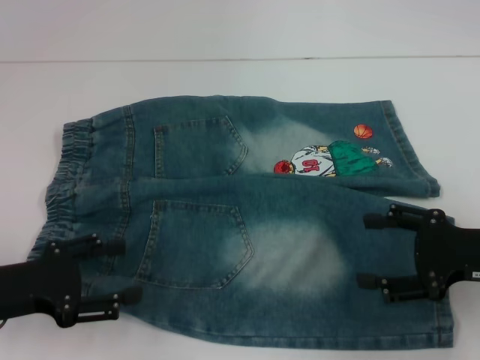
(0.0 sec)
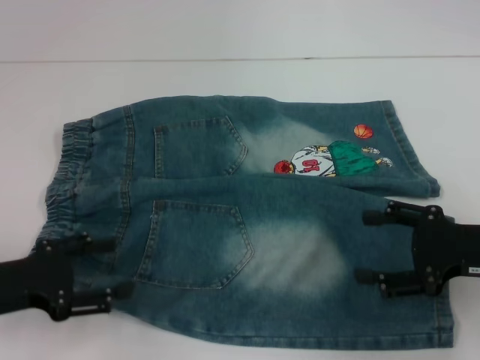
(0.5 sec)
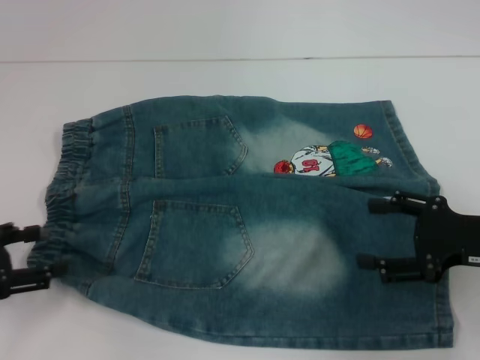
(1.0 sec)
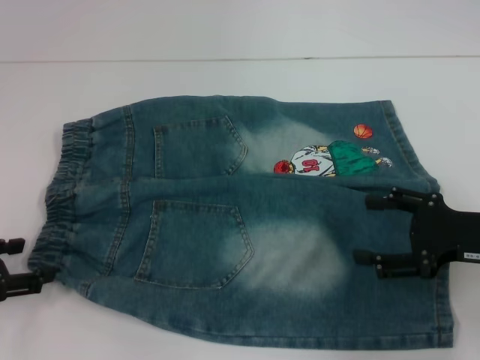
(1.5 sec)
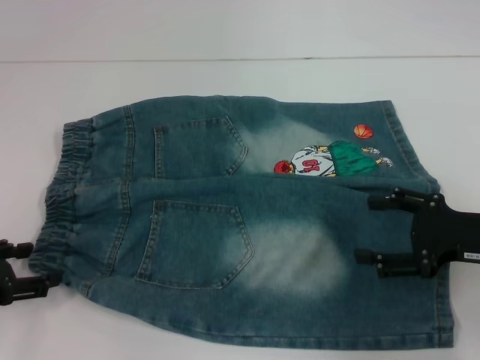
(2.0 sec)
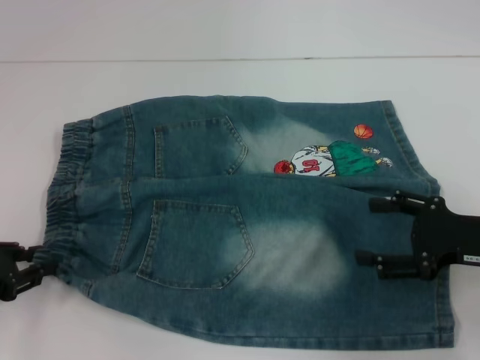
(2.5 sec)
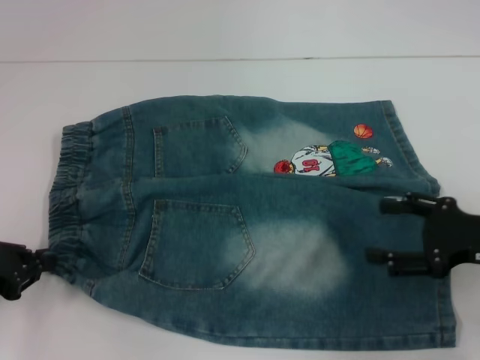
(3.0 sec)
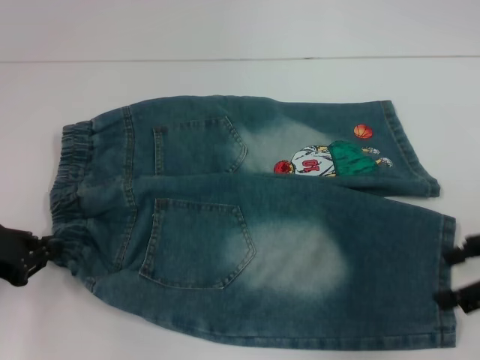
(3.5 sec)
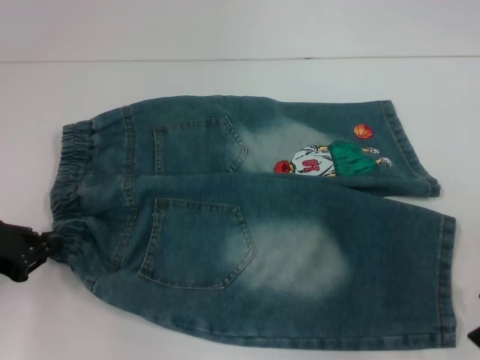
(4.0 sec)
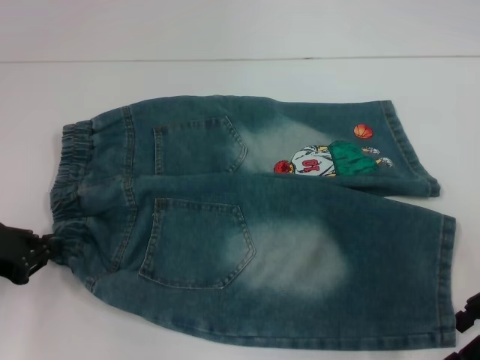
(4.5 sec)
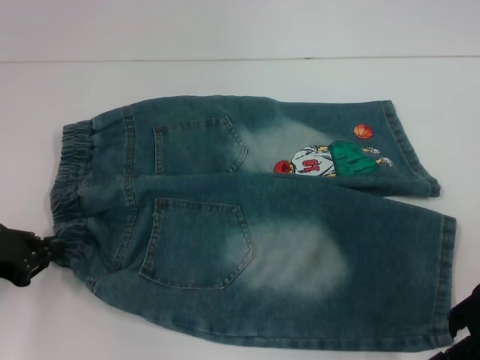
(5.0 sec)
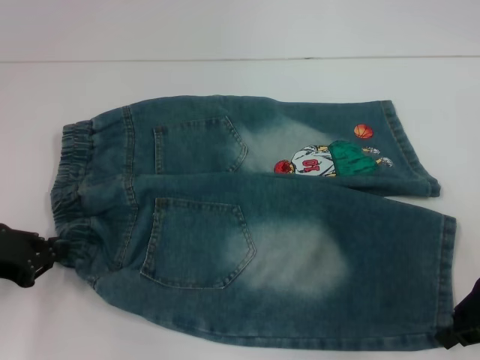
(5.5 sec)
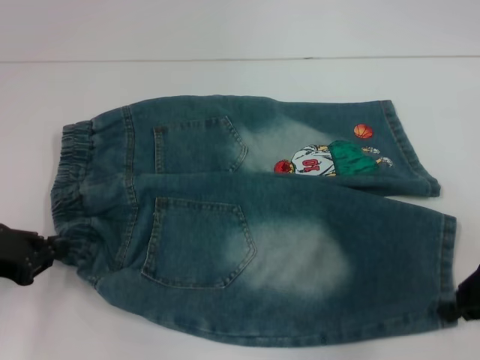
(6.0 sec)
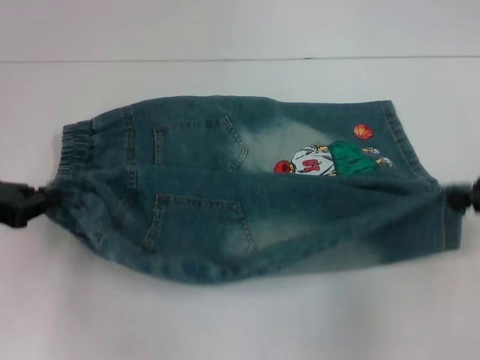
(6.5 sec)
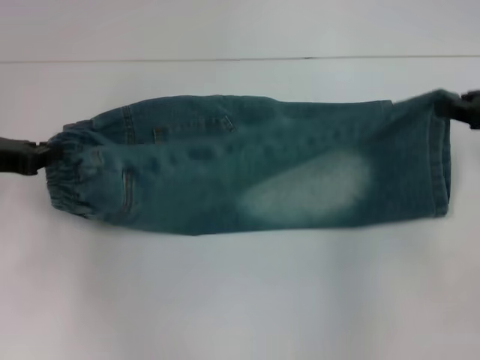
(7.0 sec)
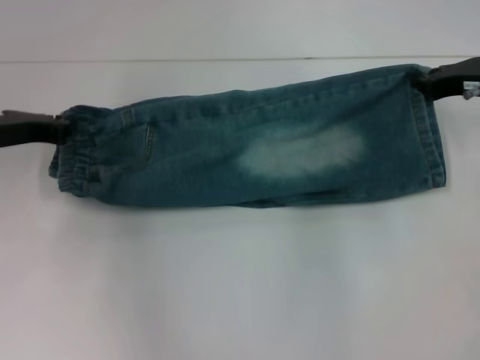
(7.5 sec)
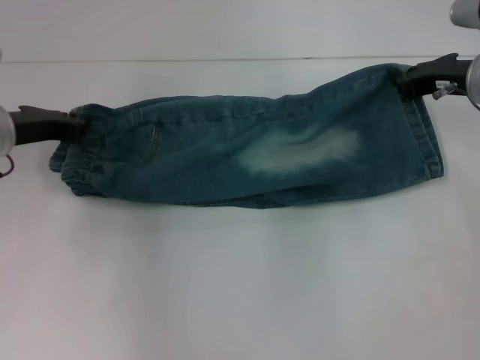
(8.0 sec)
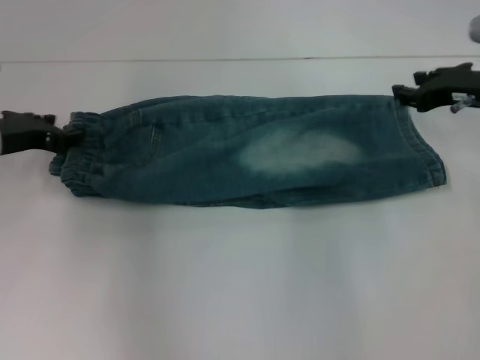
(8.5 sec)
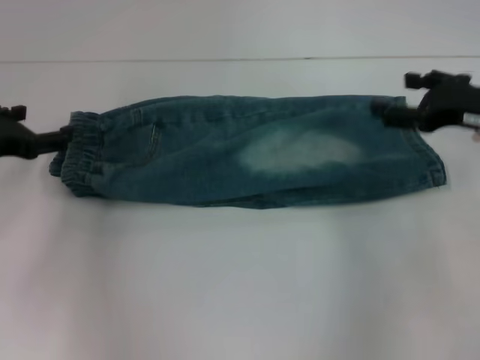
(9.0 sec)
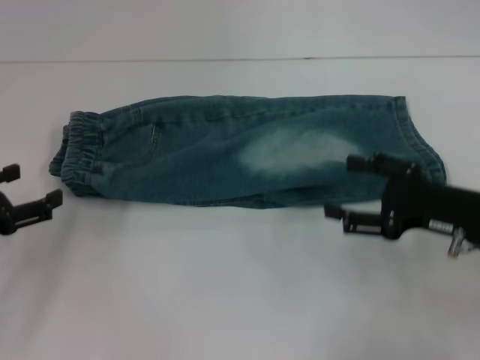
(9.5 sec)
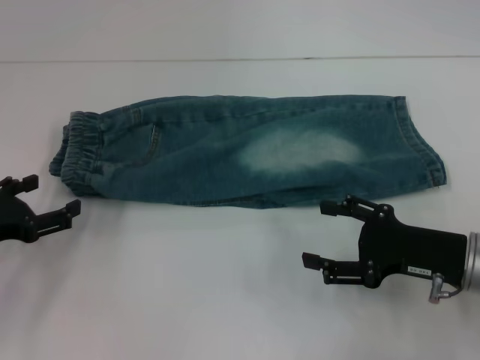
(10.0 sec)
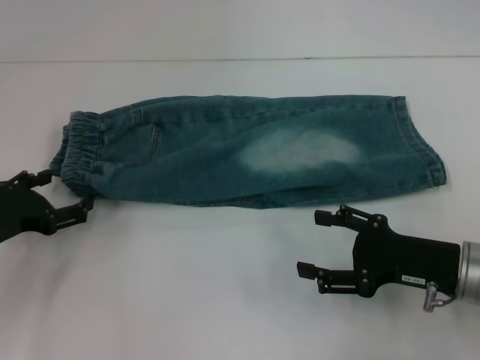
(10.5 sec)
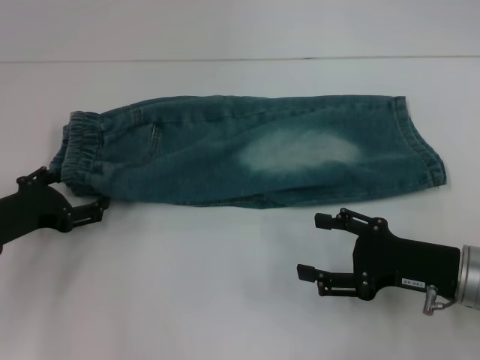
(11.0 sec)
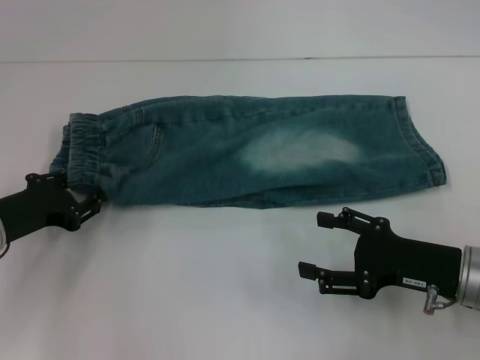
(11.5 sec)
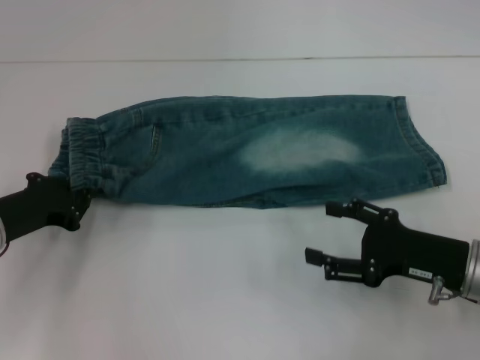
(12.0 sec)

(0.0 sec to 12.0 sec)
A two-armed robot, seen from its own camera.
Step, 0.0 sec - 2.5 sec: Hold the lower left waistband with your left hand.
Step, 3.0 sec - 5.5 sec: Grab the lower right pant leg with your right hand.
Step, 6.0 sec - 8.0 sec: Fold upward with your right hand.
Step, 8.5 sec - 11.0 sec: Hold the waistband with your left hand.
0.0 sec - 2.0 sec: The left gripper shifts by some 5 cm.
2.0 sec - 4.0 sec: The right gripper shifts some 5 cm upward, while the left gripper closes up.
4.0 sec - 6.0 sec: The right gripper closes.
6.0 sec - 8.0 sec: The right gripper travels forward by approximately 15 cm. Meanwhile the left gripper goes about 15 cm forward and to the right.
8.0 sec - 10.0 sec: The right gripper shifts roughly 20 cm backward and downward, and opens; the left gripper heads backward and to the left, covering approximately 15 cm, and opens its fingers.
10.0 sec - 12.0 sec: The left gripper ends up approximately 5 cm from where it was, and closes.

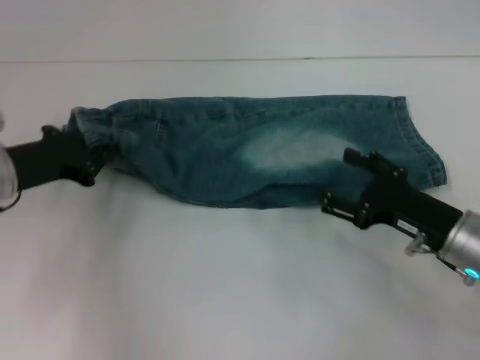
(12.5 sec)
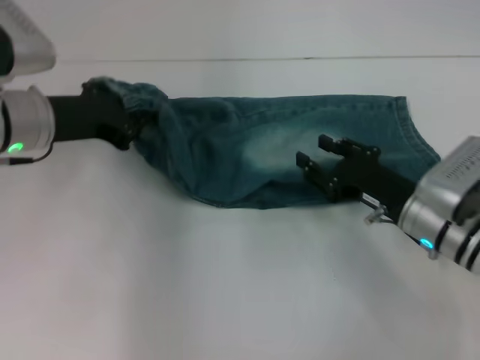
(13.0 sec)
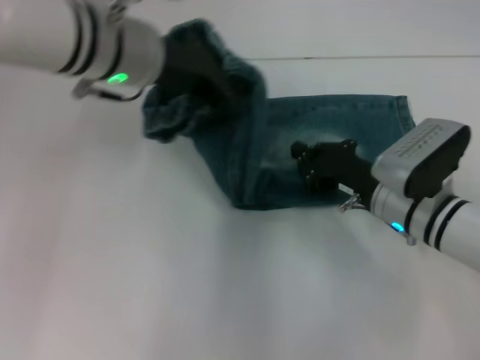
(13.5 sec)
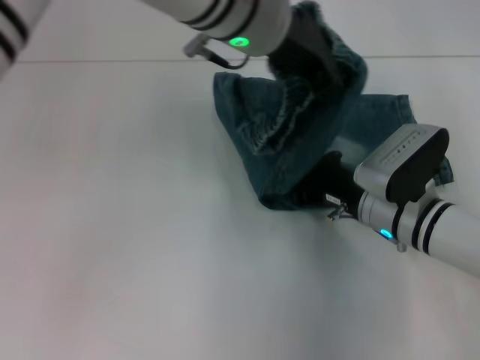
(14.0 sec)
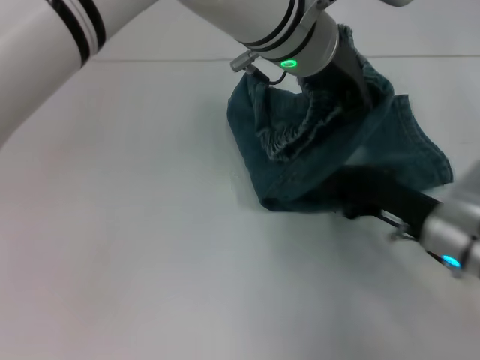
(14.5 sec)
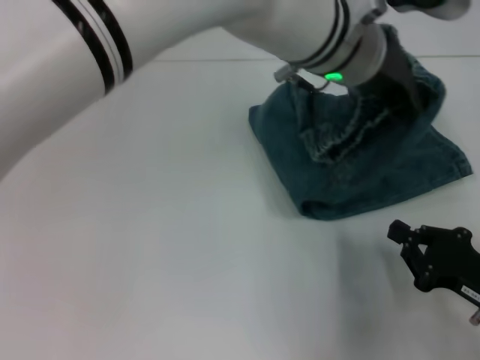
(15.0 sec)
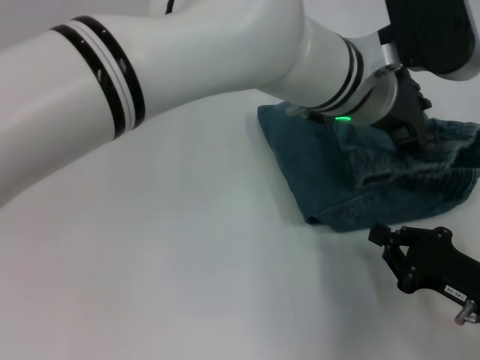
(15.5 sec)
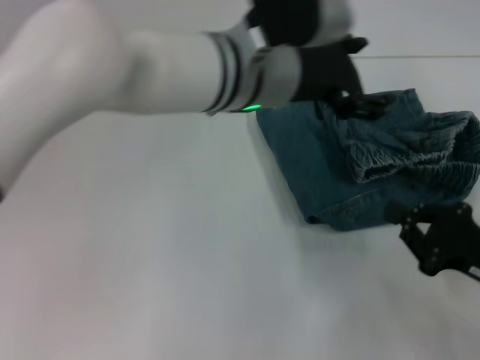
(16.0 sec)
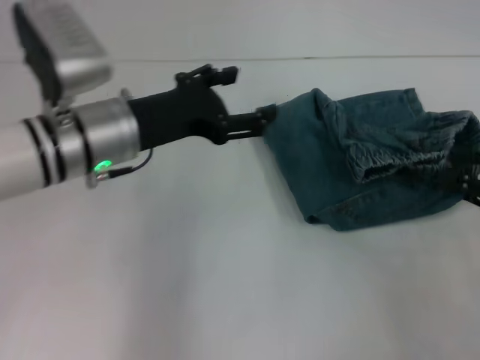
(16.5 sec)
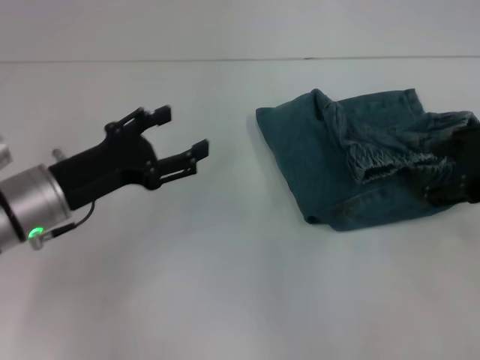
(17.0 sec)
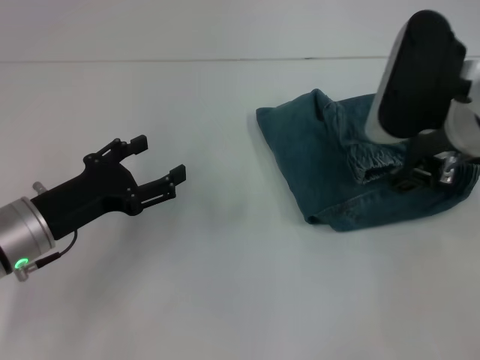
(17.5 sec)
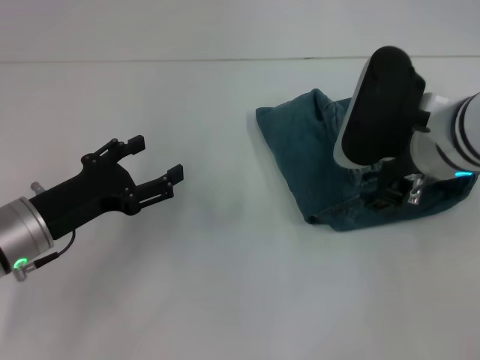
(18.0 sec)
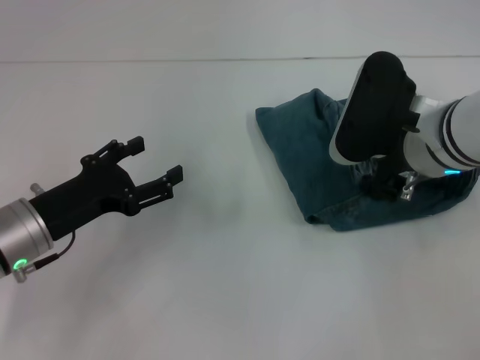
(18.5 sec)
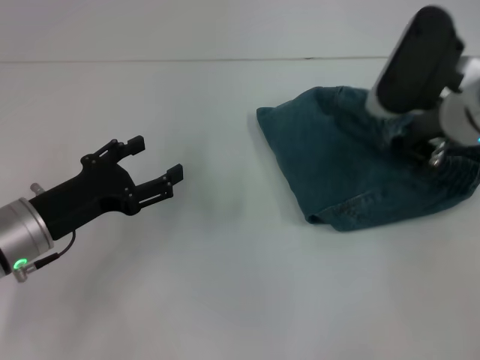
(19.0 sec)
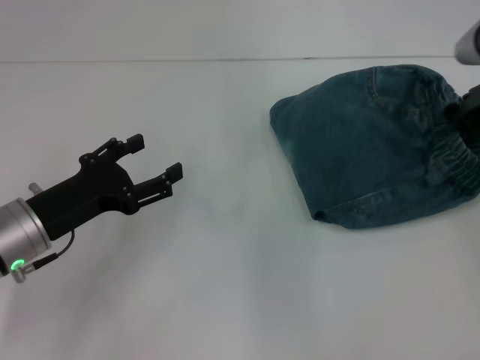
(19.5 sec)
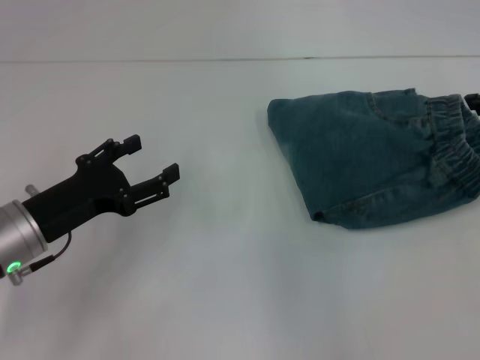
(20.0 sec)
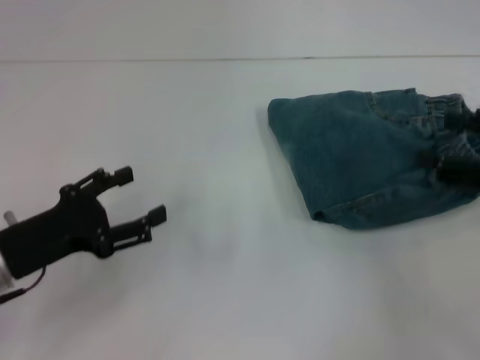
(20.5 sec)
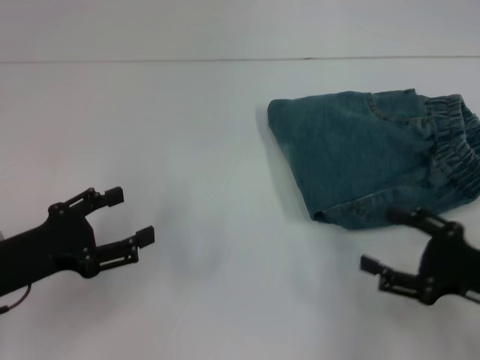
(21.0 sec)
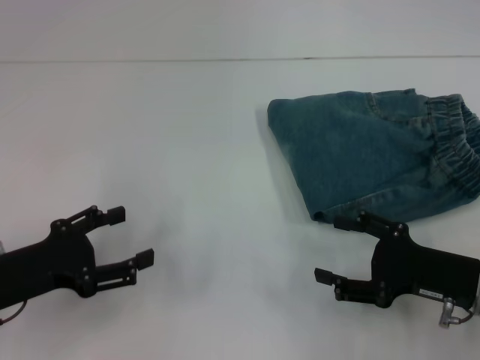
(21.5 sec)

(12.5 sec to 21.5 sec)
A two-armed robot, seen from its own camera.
Step, 12.5 sec - 14.0 sec: Press the middle of the pants with your right hand.
Step, 14.5 sec - 15.5 sec: Fold to the right with your left hand.
Step, 16.0 sec - 20.0 sec: Adjust the pants with your right hand.
12.5 sec - 14.5 sec: The right gripper closes its fingers. The left gripper moves to the right and upward, approximately 35 cm.
14.5 sec - 17.0 sec: The right gripper moves upward, approximately 20 cm, and opens. Meanwhile the left gripper goes about 30 cm to the left and downward, and opens.
17.0 sec - 19.5 sec: The right gripper heads forward, covering approximately 5 cm, reaches approximately 10 cm to the left, then returns, and closes up.
19.5 sec - 21.5 sec: The right gripper goes about 20 cm backward and downward, and opens up, while the left gripper shifts by some 5 cm.

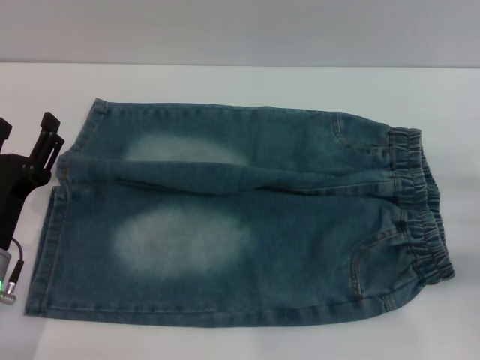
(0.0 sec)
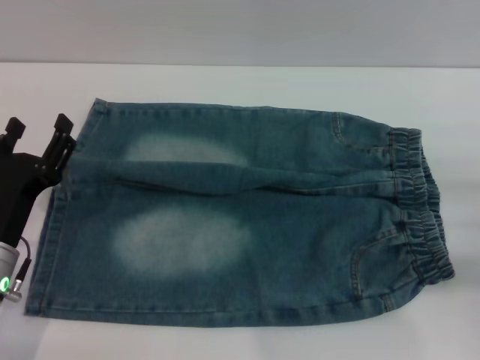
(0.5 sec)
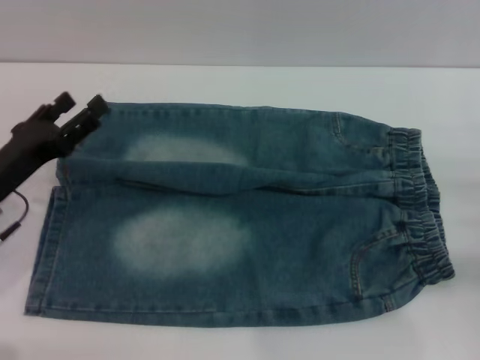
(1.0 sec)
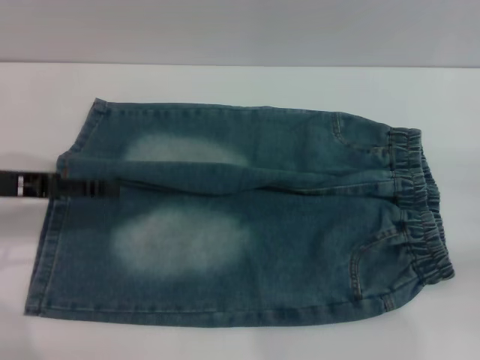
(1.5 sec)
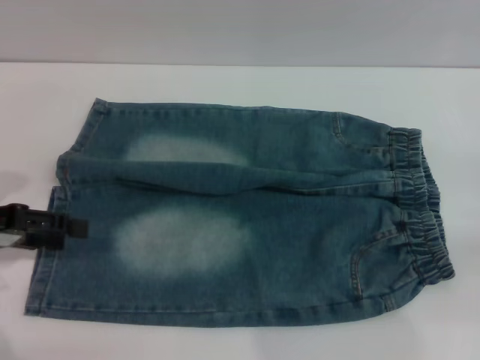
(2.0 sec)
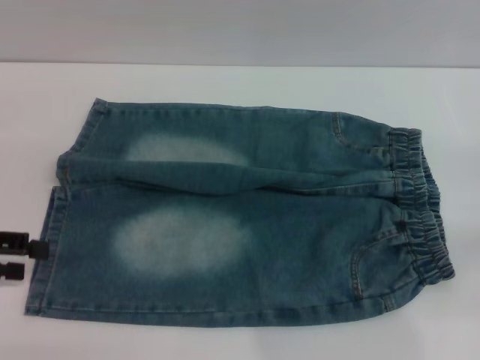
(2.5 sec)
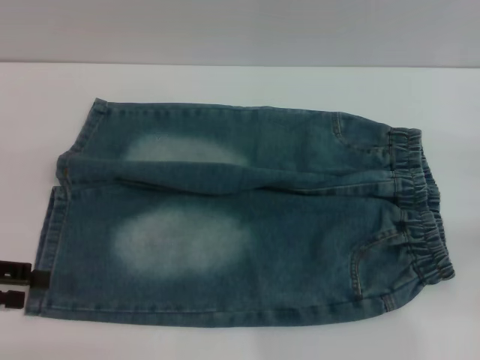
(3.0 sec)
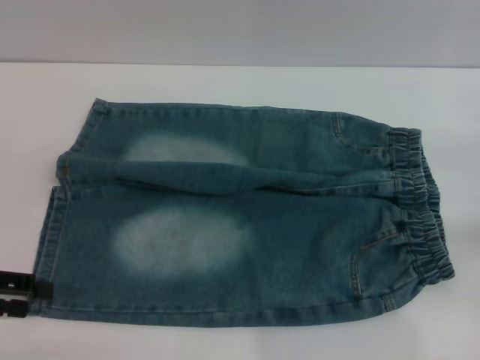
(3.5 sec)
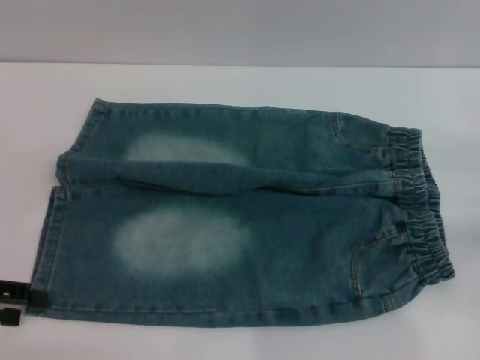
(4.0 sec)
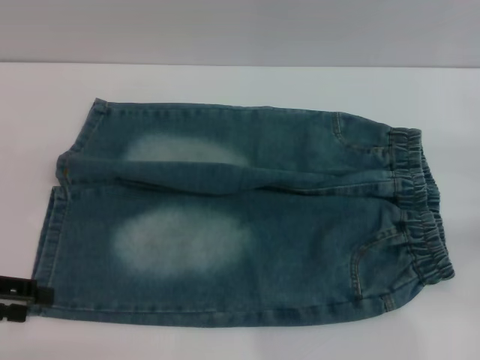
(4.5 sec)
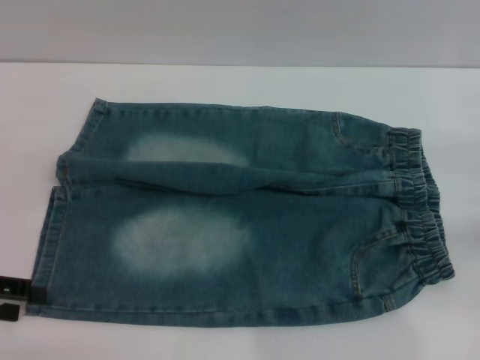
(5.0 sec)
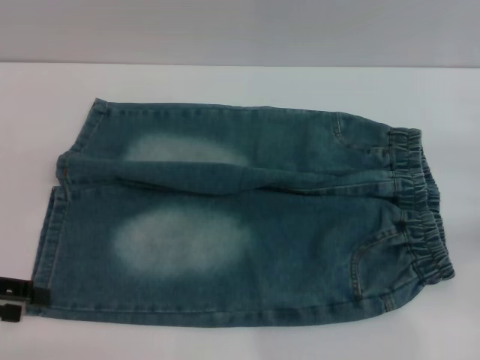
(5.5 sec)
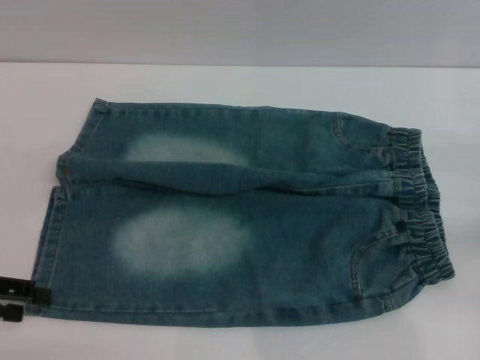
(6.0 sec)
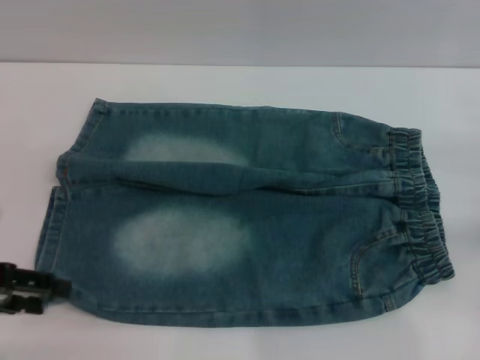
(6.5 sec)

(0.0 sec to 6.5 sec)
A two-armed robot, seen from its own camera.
0.0 sec - 2.0 sec: The right gripper is displaced to the right by roughly 5 cm. The left gripper is displaced upward, to the left and forward by about 15 cm.
2.0 sec - 4.5 sec: The left gripper changes place by roughly 5 cm.
4.5 sec - 6.5 sec: The grippers make only small movements.
